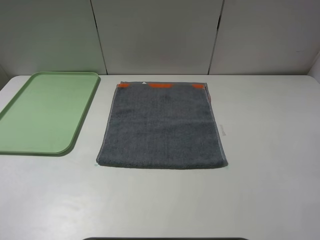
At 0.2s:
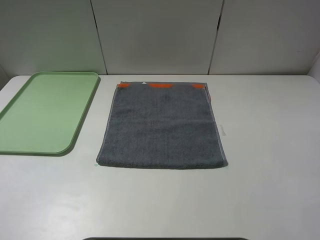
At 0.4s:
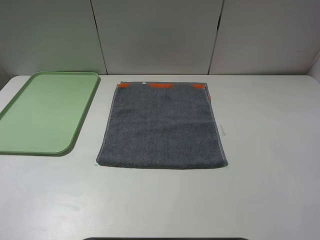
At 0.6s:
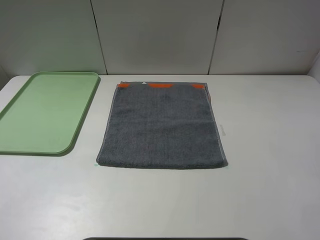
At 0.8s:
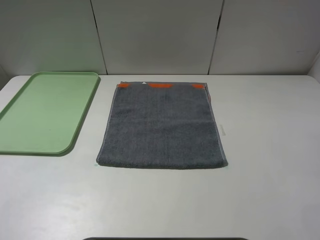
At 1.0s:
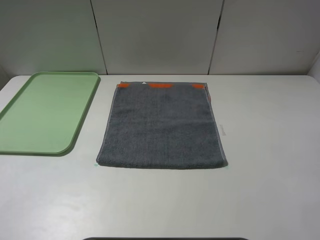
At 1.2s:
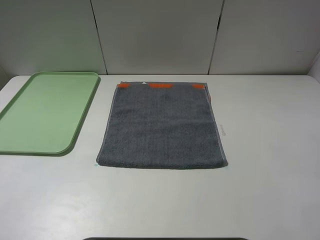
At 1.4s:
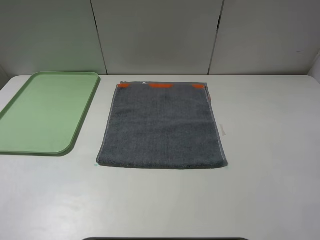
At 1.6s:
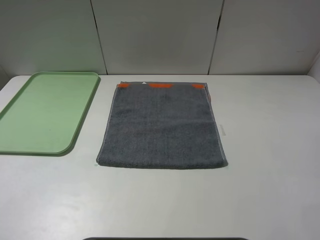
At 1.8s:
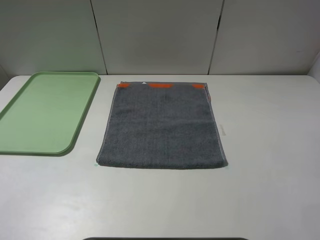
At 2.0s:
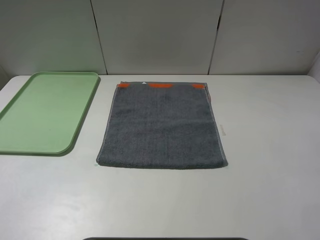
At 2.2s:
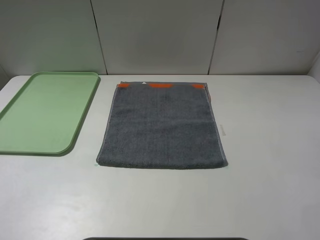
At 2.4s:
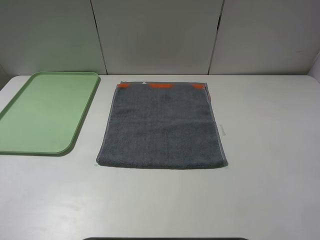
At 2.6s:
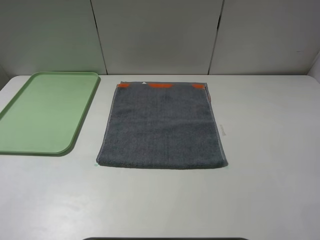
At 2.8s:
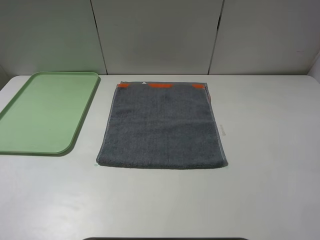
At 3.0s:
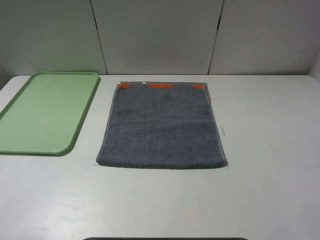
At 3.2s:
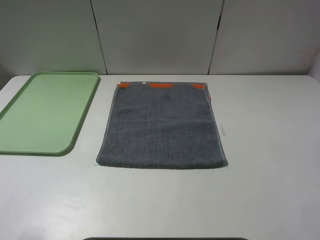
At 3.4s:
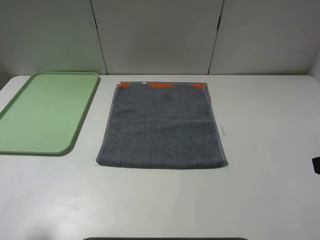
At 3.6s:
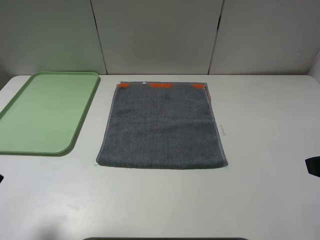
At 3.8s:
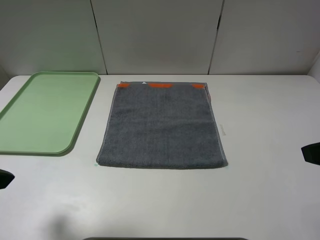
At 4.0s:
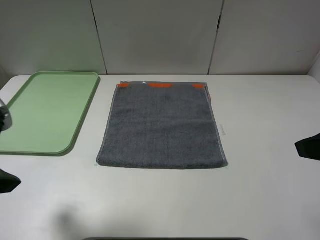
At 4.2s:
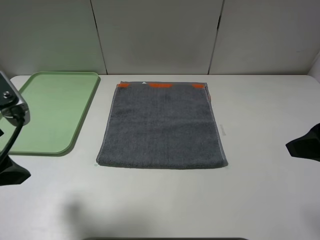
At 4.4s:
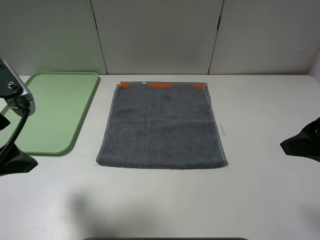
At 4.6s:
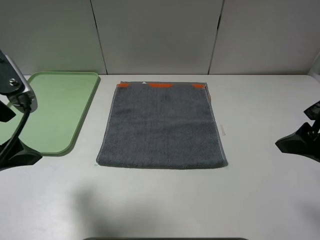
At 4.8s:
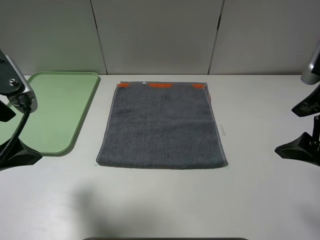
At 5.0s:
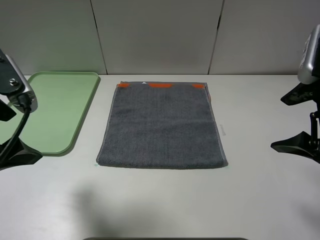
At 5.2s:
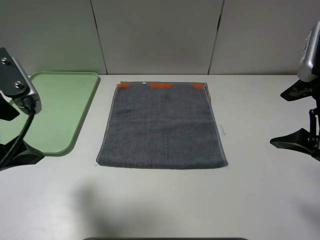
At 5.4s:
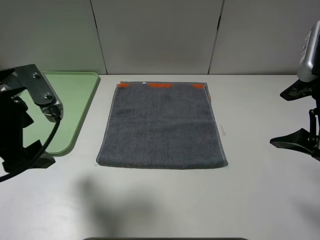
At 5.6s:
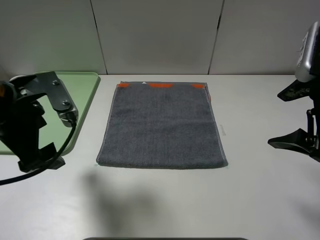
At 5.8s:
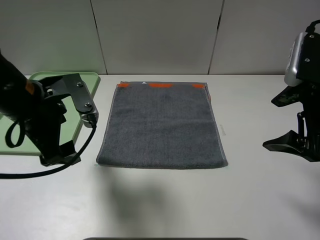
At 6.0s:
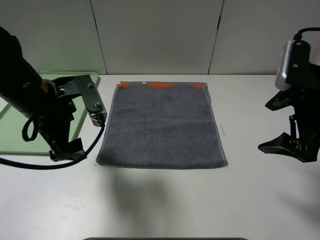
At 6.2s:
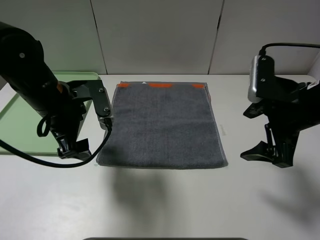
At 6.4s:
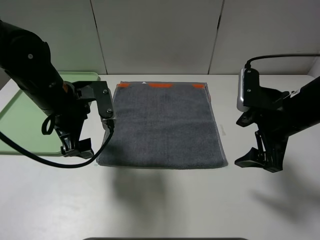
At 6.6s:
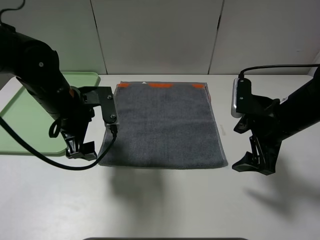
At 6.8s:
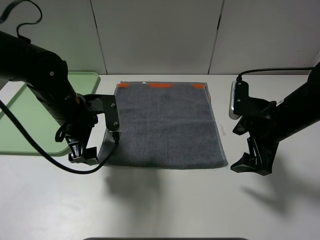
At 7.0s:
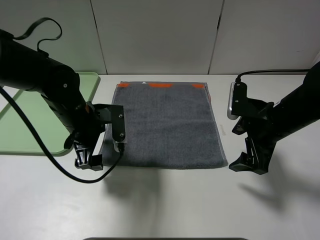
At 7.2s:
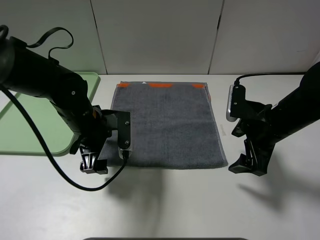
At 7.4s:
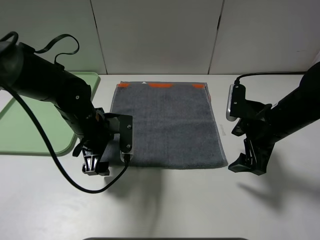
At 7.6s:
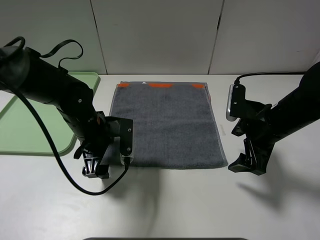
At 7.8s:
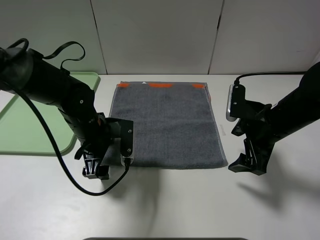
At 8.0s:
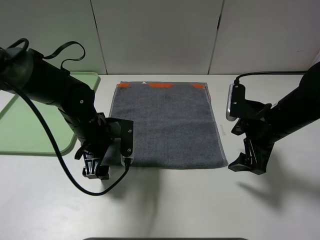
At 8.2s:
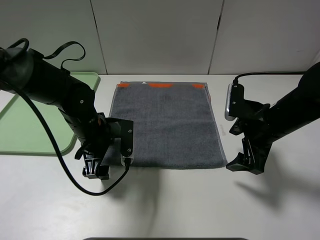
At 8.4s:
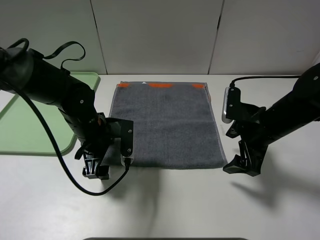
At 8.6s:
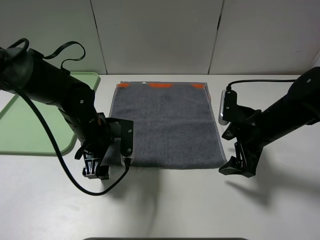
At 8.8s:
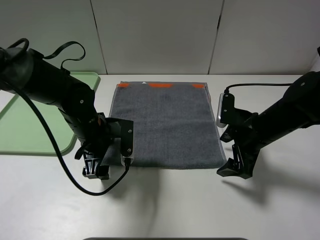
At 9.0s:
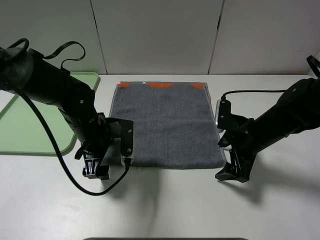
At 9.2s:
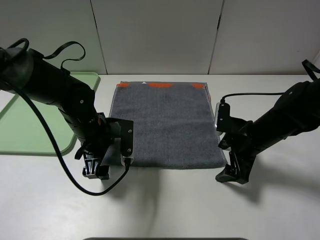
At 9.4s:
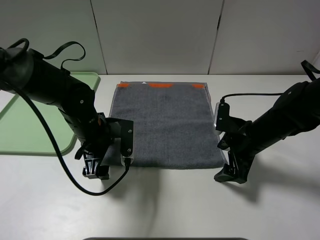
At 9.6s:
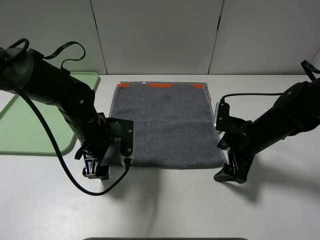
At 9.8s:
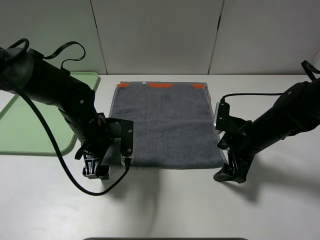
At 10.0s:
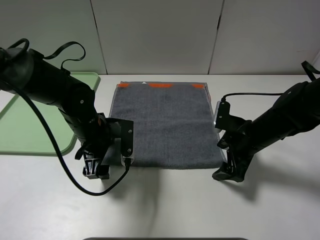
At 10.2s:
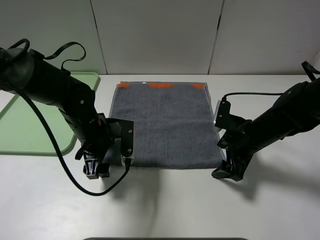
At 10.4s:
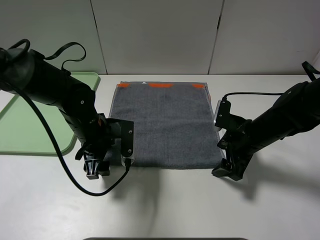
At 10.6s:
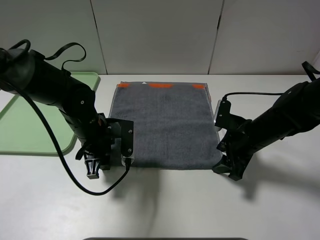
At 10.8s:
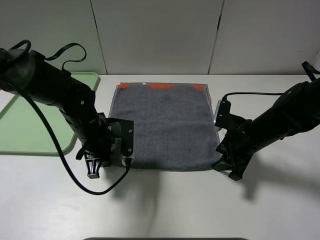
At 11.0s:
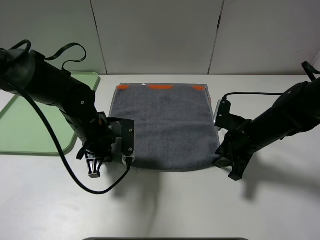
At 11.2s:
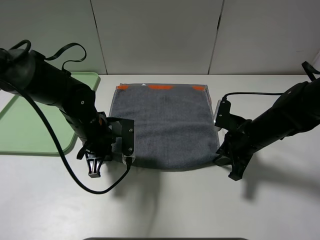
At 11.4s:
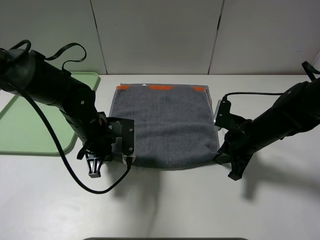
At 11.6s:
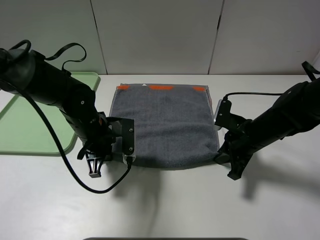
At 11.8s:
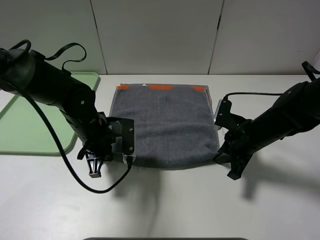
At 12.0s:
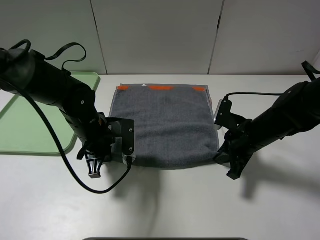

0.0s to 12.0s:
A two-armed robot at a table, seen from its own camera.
0.0s to 1.6s: Neither gripper changes place.
3.0s to 4.4s: The right gripper is displaced forward by about 10 cm; the left gripper heads forward and to the right, covering approximately 10 cm.
4.4s to 6.0s: The right gripper goes about 5 cm forward. The left gripper moves forward, downward and to the right, roughly 15 cm.
6.0s to 7.6s: The two grippers go some 10 cm downward.
7.6s to 9.0s: The right gripper shifts about 5 cm downward.
9.0s to 10.4s: There are only small adjustments of the grippers.
10.4s to 12.0s: The right gripper closes its fingers. The left gripper closes its fingers.

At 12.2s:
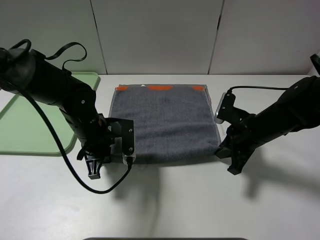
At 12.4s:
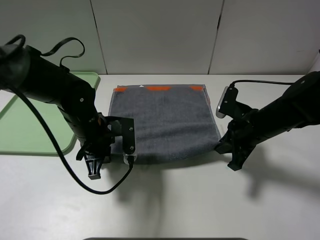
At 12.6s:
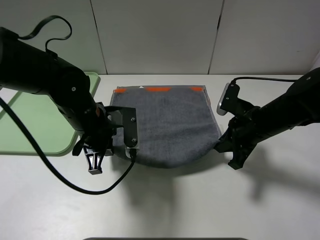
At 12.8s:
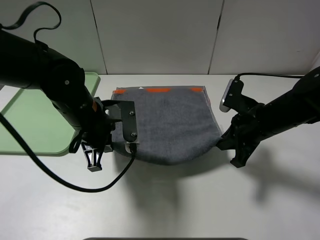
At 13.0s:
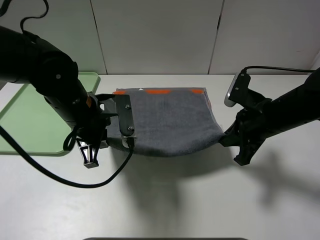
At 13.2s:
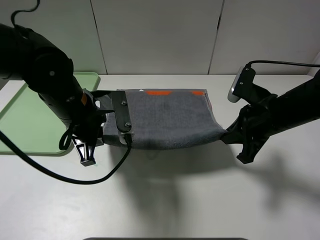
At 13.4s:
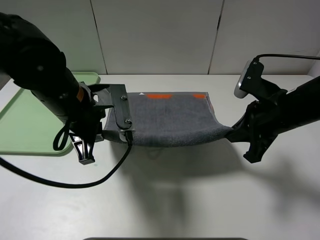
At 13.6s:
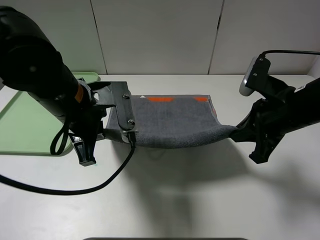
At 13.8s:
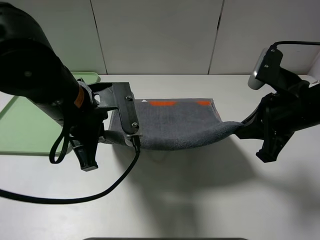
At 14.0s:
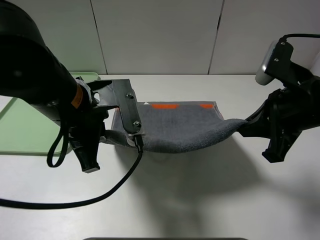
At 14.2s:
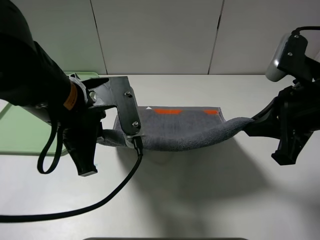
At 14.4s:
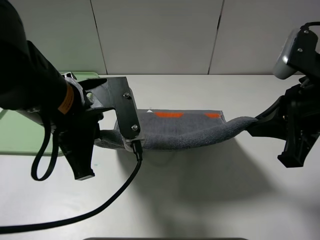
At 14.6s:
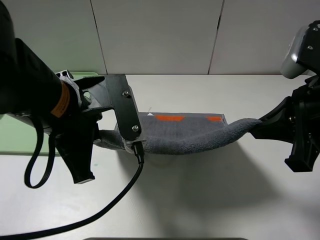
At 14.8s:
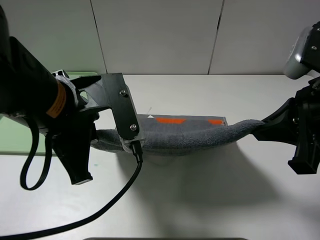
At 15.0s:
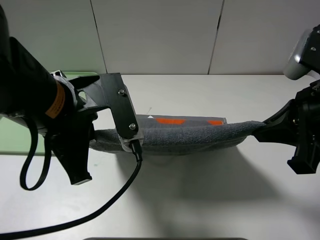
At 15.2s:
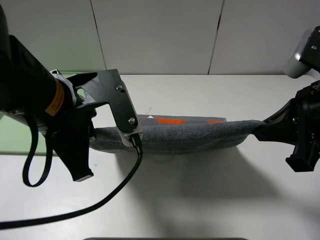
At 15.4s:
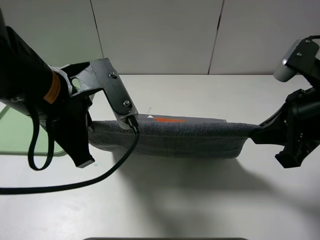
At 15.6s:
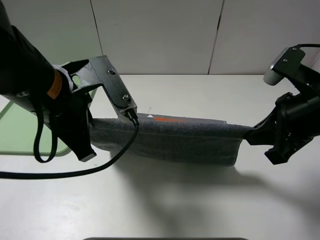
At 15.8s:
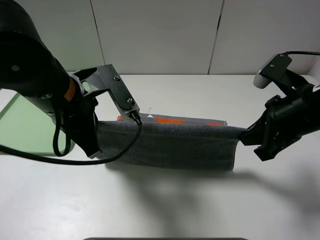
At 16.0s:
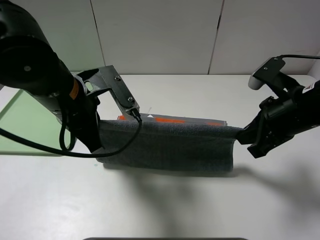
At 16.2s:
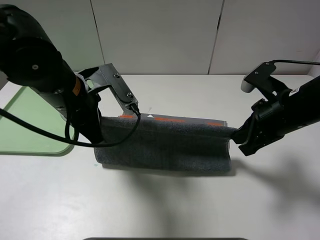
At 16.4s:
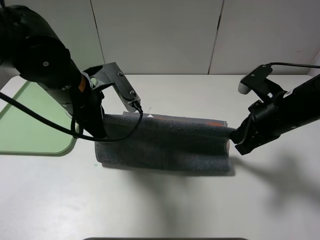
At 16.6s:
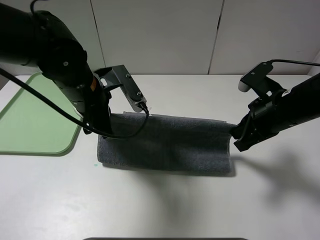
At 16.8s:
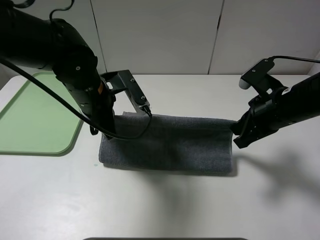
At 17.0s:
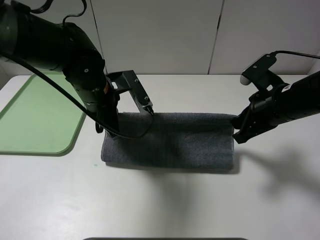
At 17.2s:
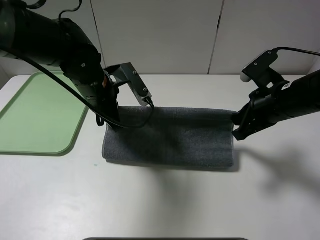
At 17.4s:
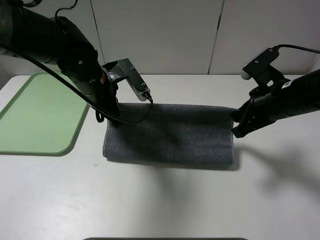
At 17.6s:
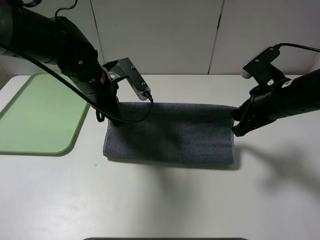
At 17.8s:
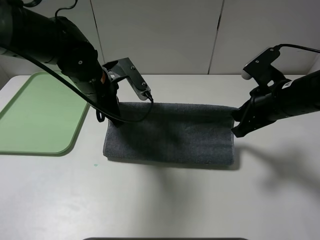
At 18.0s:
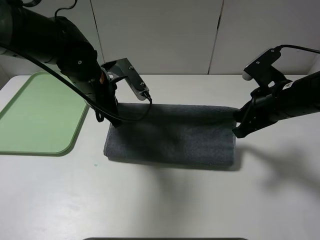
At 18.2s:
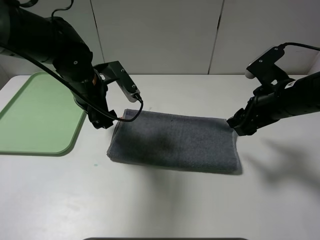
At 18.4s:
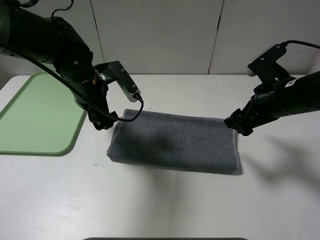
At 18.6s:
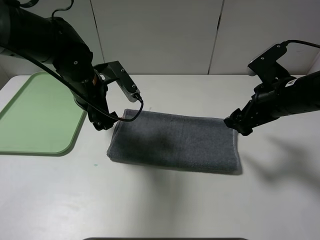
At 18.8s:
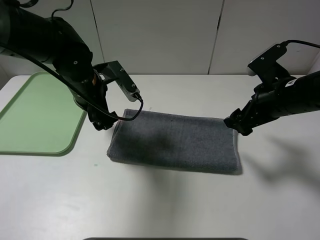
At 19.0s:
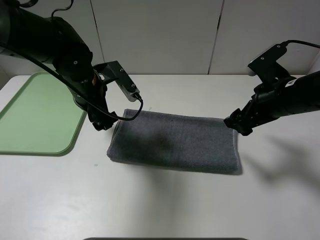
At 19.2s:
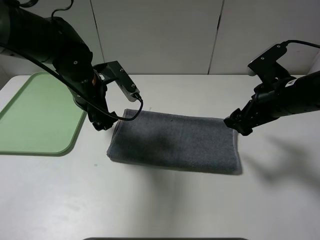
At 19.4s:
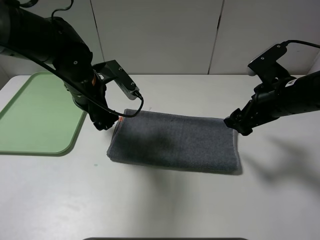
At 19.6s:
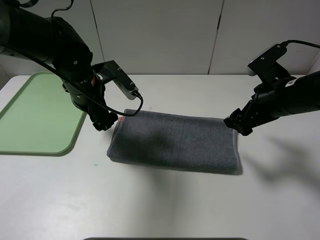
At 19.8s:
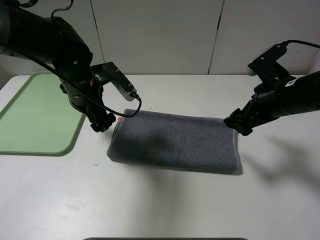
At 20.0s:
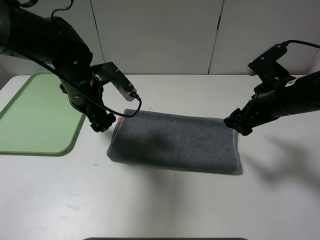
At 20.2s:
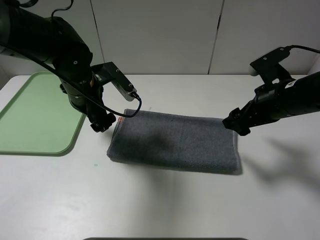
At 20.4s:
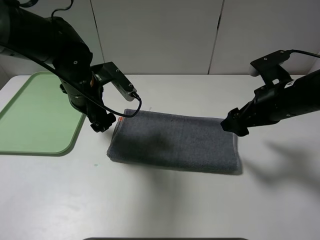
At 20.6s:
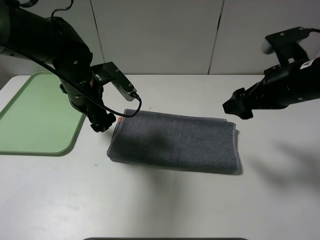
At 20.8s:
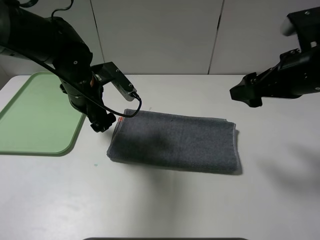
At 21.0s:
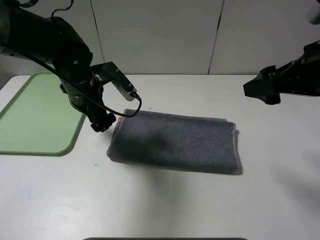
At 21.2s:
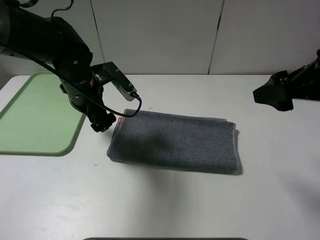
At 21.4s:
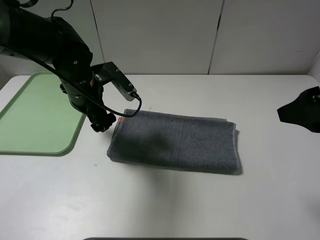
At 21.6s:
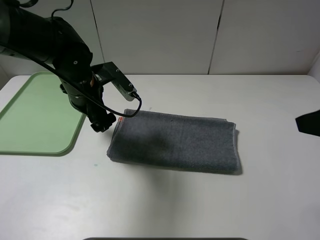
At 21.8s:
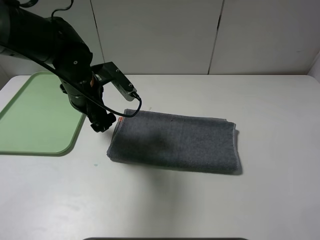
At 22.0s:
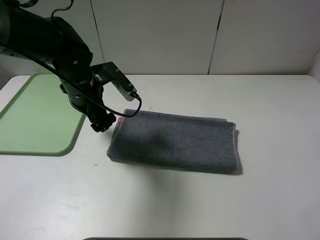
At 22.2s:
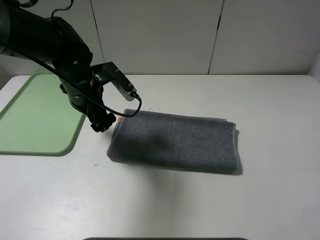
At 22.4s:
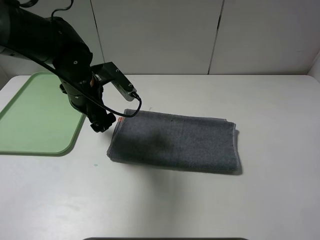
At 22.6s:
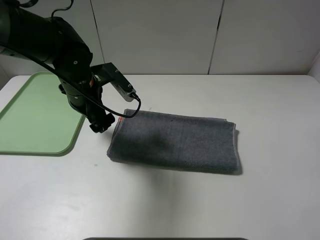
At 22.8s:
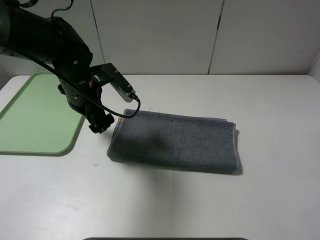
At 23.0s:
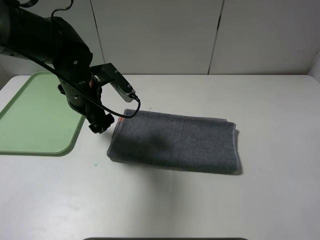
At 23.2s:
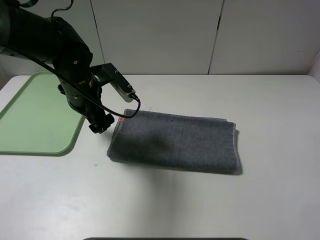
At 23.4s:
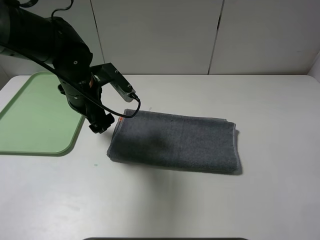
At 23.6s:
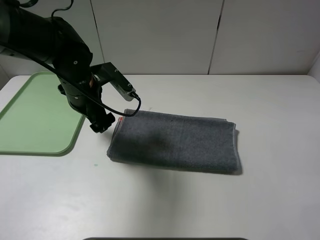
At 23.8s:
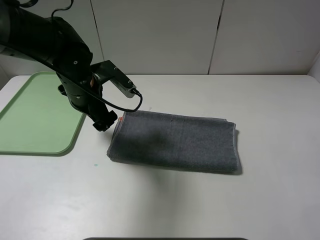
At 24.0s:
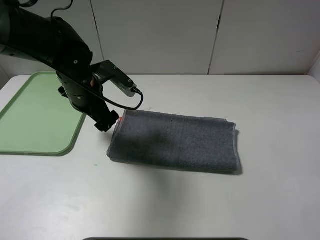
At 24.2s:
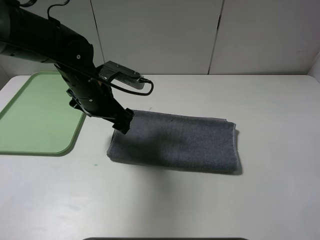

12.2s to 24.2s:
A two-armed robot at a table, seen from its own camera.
Step, 12.2s to 19.2s: Fold the grey towel upwards.
12.2s to 13.8s: The grippers both shift upward and backward by roughly 15 cm.
13.8s to 15.2s: The right gripper shifts by some 5 cm; the left gripper shifts by approximately 5 cm.
15.2s to 16.6s: The right gripper heads downward and forward, covering some 10 cm, while the left gripper goes about 15 cm forward and downward.
16.6s to 18.2s: The left gripper opens its fingers. Meanwhile the right gripper opens its fingers.
18.2s to 19.8s: The grippers make only small movements.
19.8s to 21.2s: The right gripper shifts roughly 10 cm upward and backward.
21.2s to 22.6s: The right gripper shifts about 20 cm backward.
